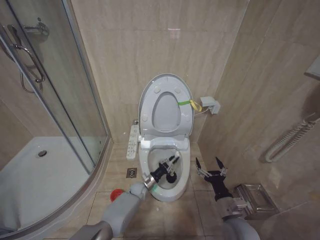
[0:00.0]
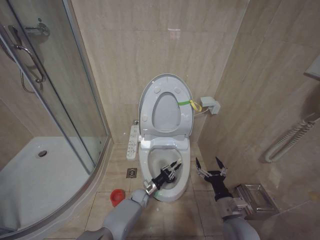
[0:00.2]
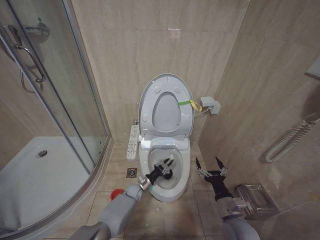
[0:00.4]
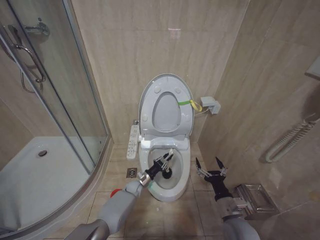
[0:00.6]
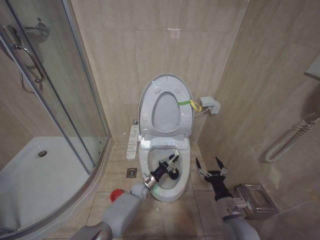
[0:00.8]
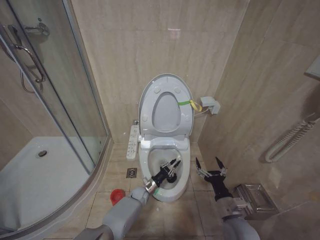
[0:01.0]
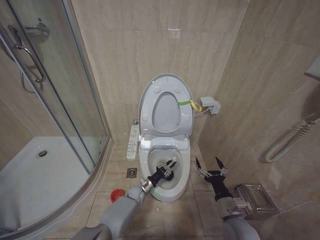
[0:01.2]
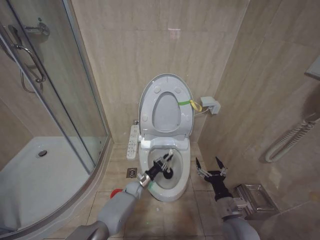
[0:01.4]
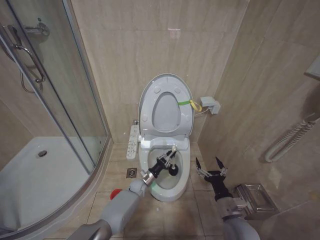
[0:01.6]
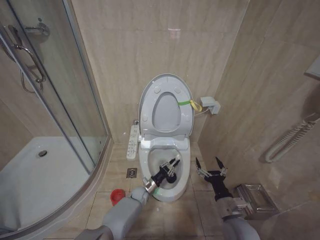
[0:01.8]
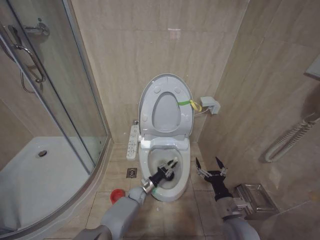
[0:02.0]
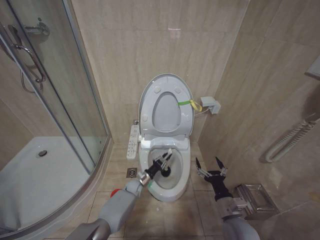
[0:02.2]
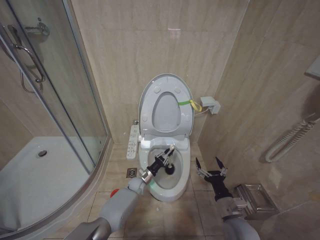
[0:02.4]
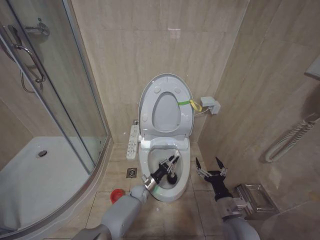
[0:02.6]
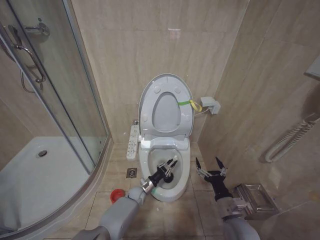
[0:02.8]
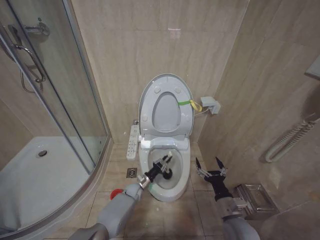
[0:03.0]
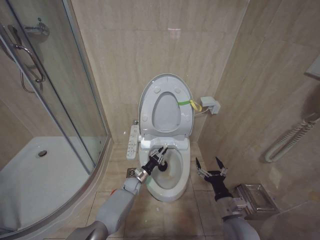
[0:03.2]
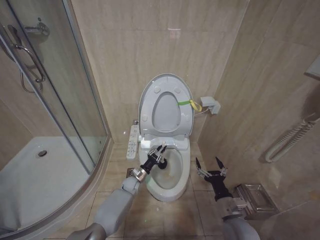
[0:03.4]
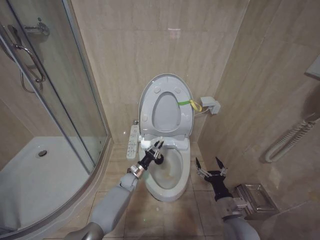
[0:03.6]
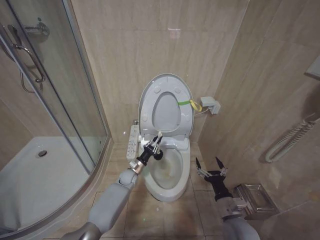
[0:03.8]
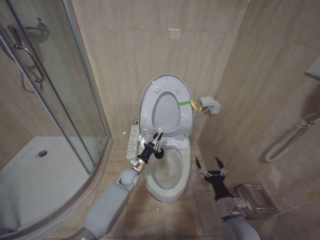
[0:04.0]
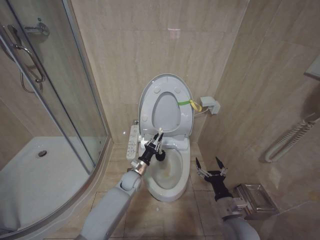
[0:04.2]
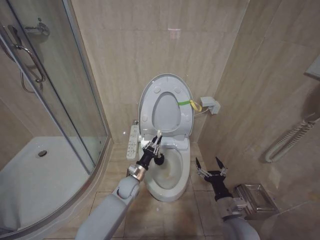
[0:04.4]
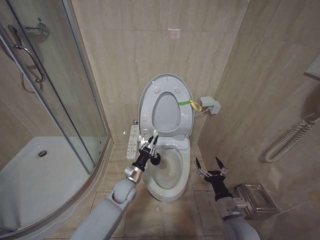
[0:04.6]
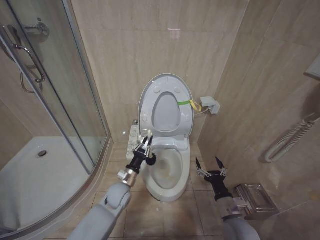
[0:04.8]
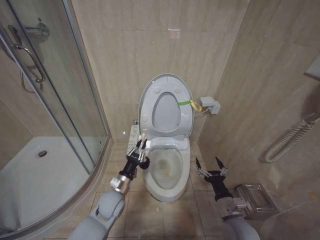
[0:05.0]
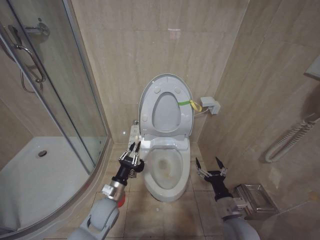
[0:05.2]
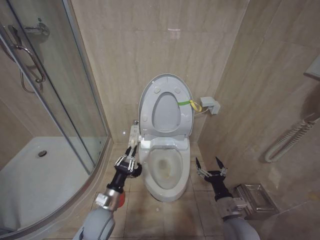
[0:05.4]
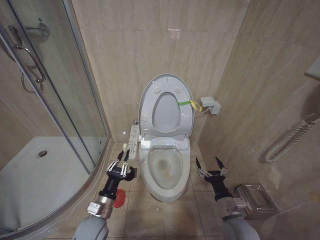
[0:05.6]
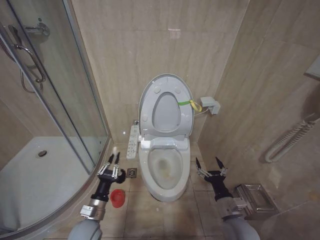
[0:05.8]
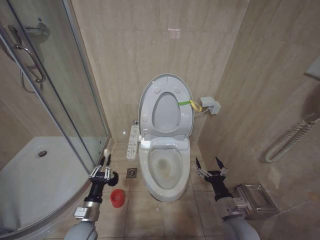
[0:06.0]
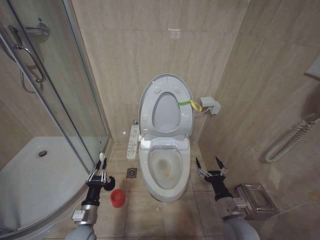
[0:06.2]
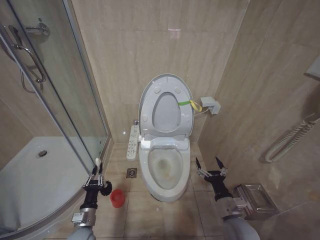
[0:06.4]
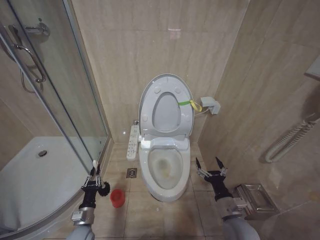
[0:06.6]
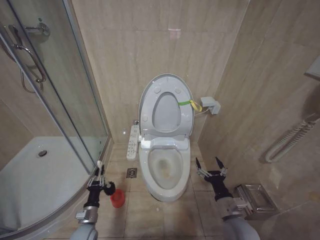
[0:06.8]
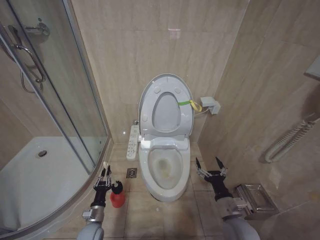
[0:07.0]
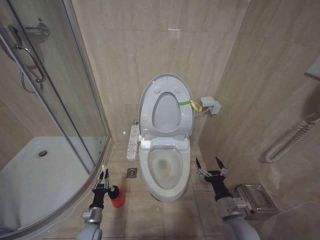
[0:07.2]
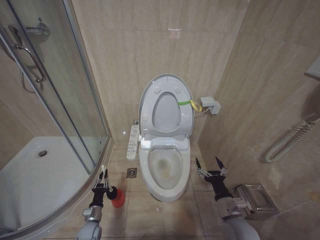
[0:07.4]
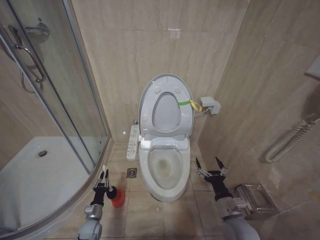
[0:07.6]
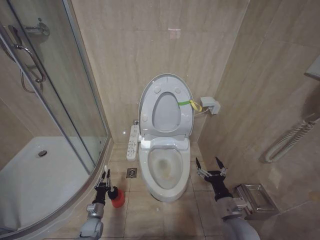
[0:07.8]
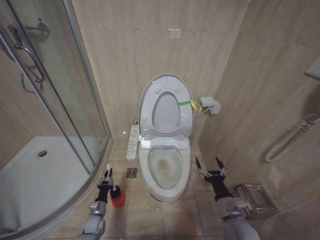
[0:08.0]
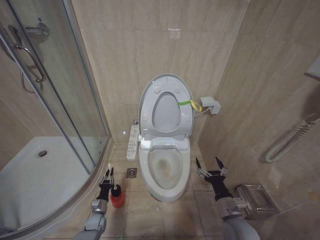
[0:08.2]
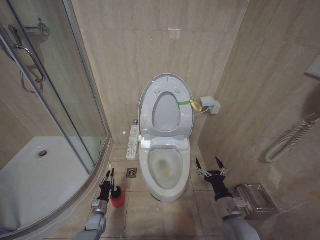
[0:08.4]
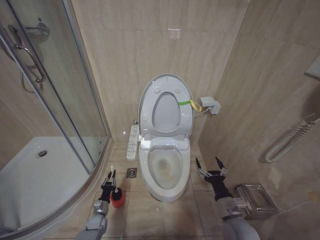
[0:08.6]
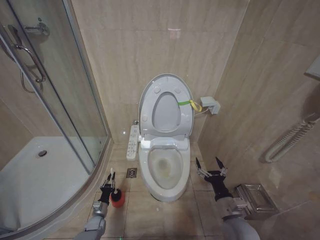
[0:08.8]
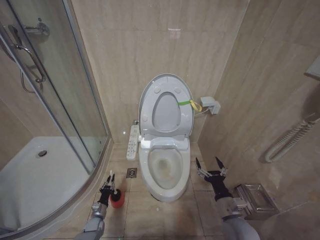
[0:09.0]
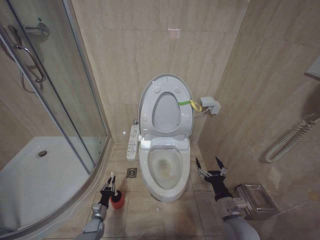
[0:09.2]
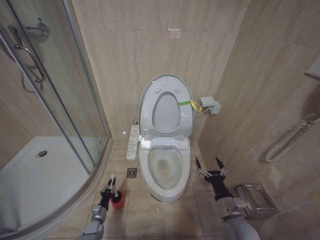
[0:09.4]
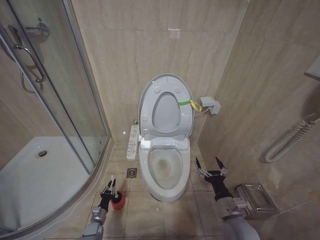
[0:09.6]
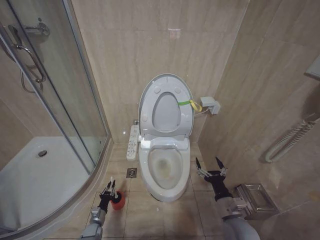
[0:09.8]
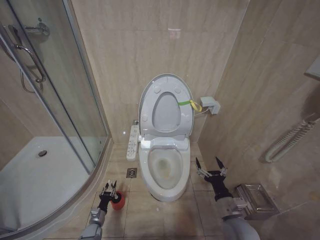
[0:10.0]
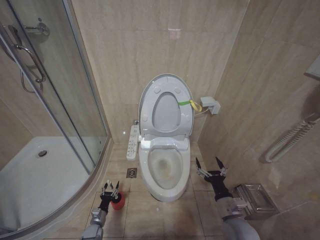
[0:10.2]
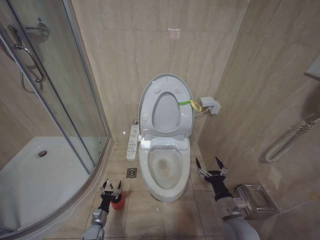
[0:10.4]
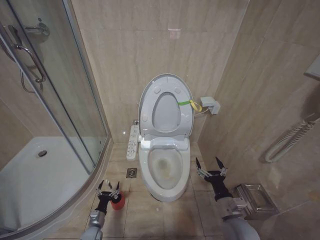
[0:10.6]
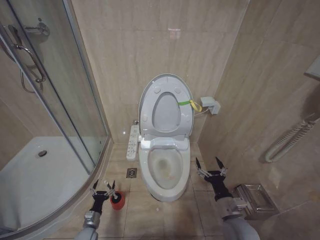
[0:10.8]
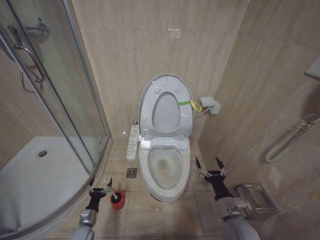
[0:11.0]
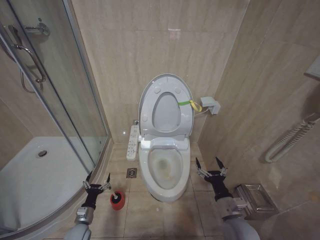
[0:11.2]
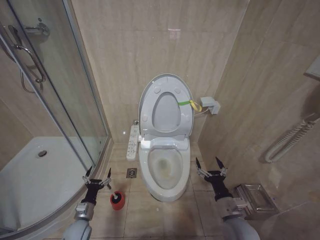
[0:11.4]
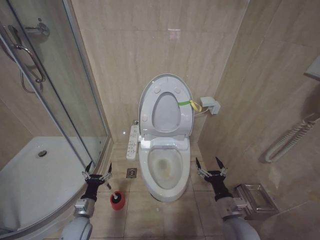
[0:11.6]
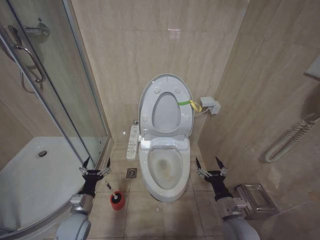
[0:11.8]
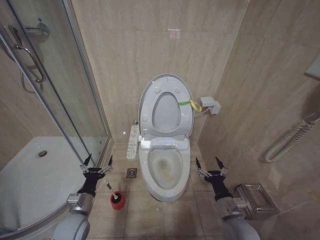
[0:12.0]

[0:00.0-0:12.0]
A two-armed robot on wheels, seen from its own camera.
Task of the whole recording: Open the toilet lid, clean the toilet bowl with a toilet brush, close the toilet lid, and flush.
0:00.0 to 0:03.0: The grippers make only small movements.
0:03.0 to 0:04.4: The left gripper shifts approximately 15 cm upward.
0:04.4 to 0:06.0: The left gripper moves backward and to the left, roughly 25 cm.
0:06.0 to 0:07.6: The left gripper is displaced downward by about 20 cm.
0:07.6 to 0:09.0: The left gripper shifts approximately 5 cm downward.
0:09.0 to 0:10.4: The left gripper opens its fingers.
0:10.4 to 0:12.0: The left gripper is displaced upward by roughly 25 cm.

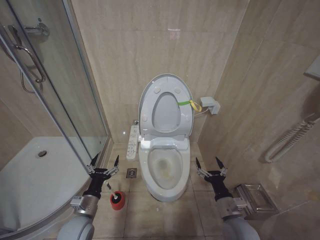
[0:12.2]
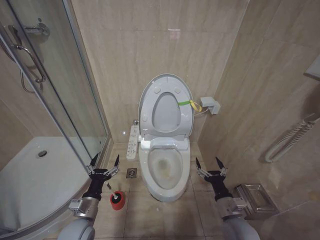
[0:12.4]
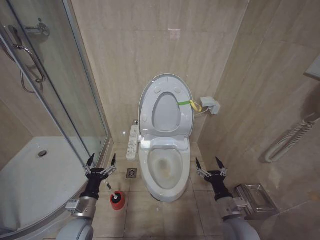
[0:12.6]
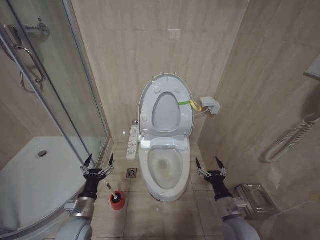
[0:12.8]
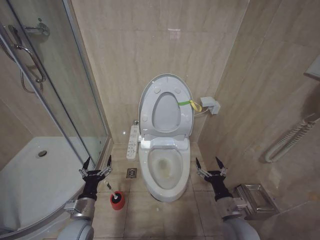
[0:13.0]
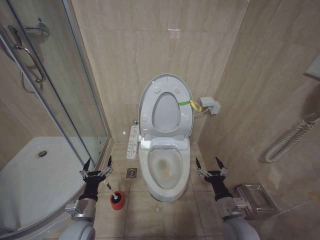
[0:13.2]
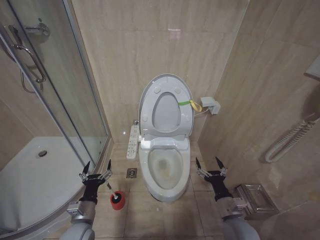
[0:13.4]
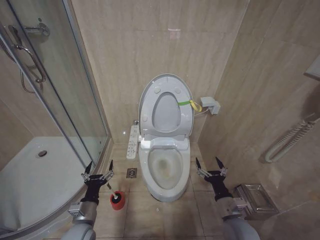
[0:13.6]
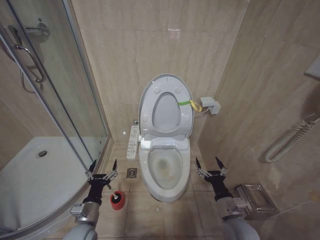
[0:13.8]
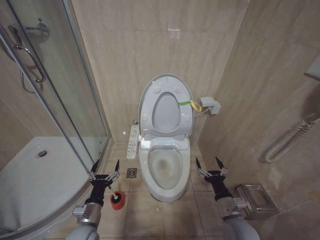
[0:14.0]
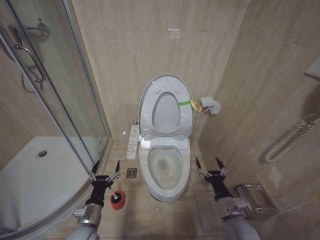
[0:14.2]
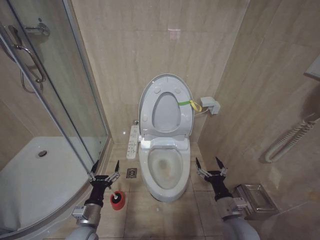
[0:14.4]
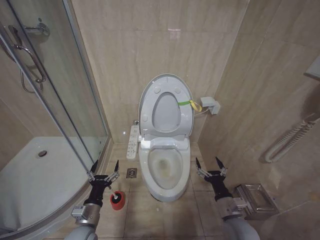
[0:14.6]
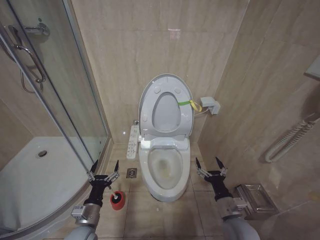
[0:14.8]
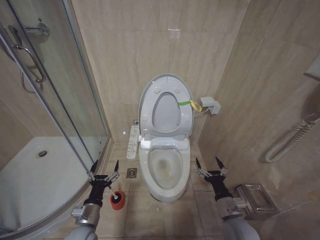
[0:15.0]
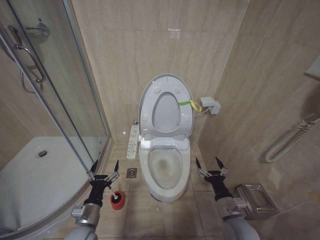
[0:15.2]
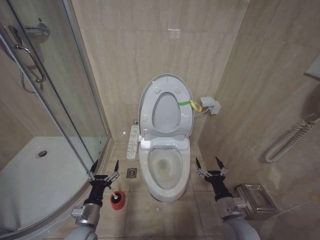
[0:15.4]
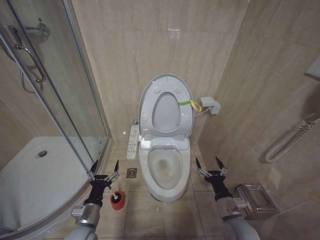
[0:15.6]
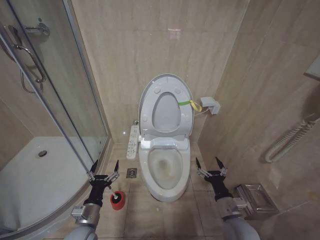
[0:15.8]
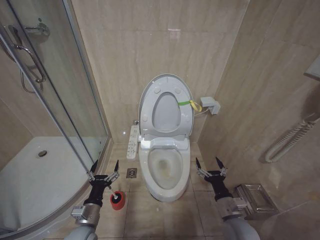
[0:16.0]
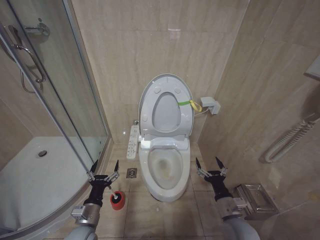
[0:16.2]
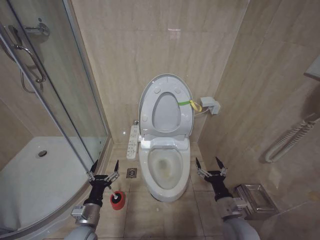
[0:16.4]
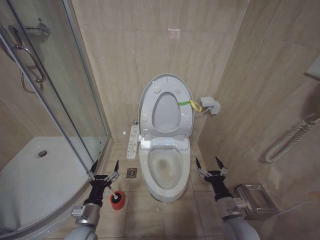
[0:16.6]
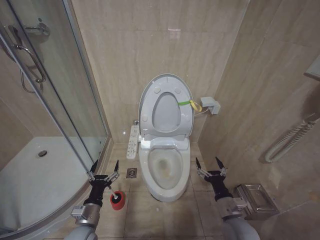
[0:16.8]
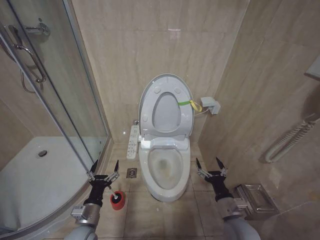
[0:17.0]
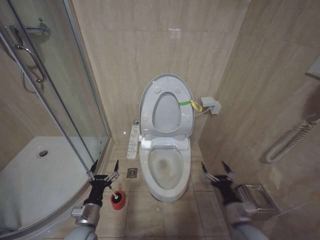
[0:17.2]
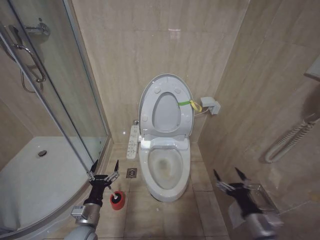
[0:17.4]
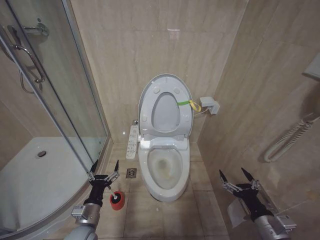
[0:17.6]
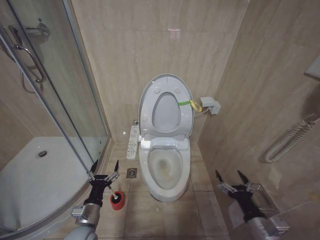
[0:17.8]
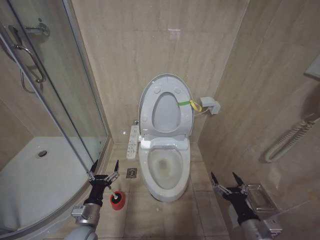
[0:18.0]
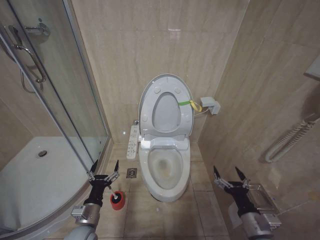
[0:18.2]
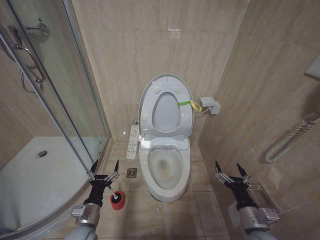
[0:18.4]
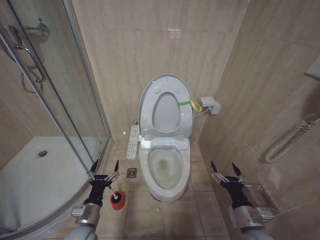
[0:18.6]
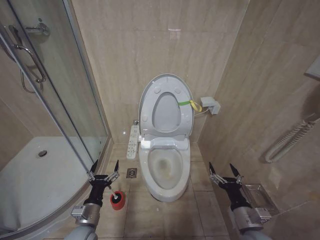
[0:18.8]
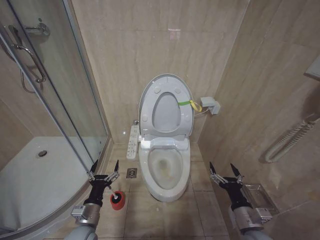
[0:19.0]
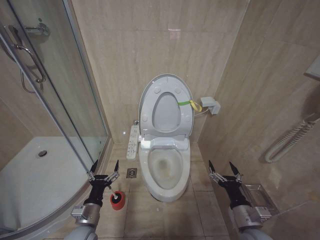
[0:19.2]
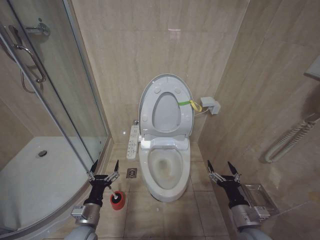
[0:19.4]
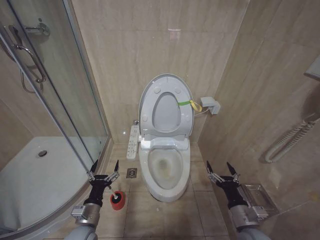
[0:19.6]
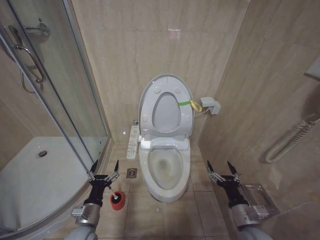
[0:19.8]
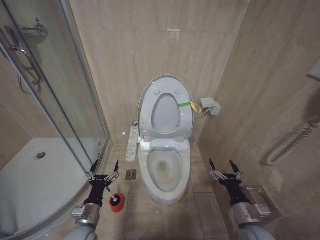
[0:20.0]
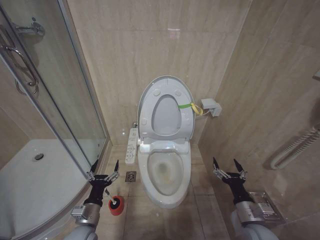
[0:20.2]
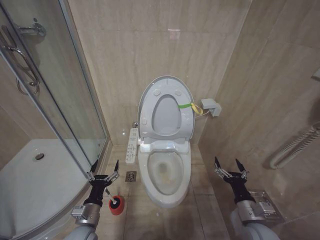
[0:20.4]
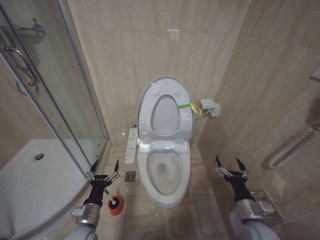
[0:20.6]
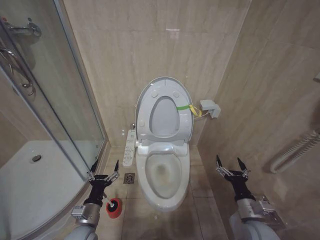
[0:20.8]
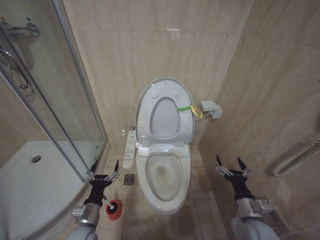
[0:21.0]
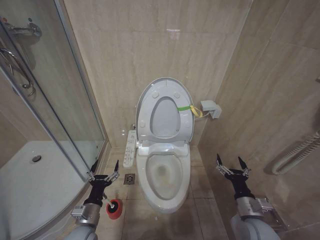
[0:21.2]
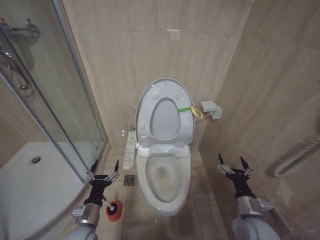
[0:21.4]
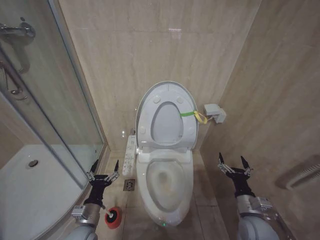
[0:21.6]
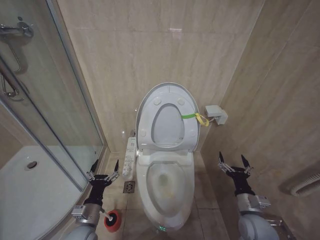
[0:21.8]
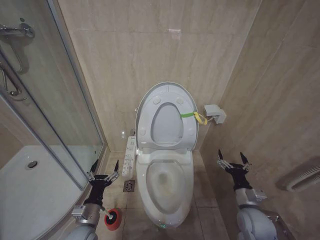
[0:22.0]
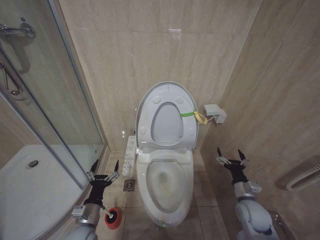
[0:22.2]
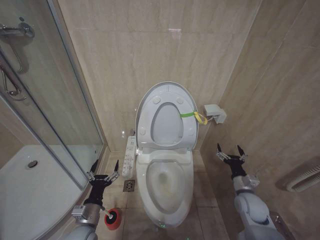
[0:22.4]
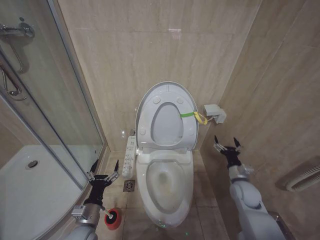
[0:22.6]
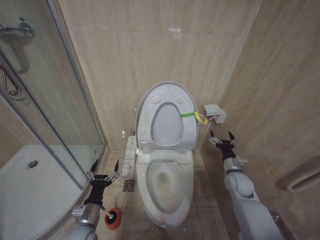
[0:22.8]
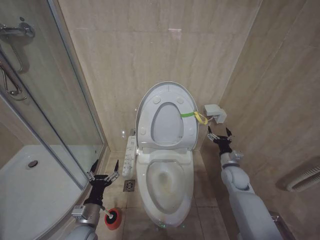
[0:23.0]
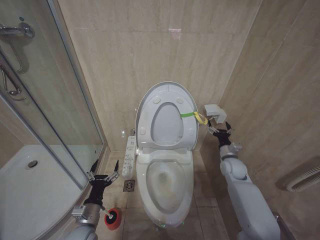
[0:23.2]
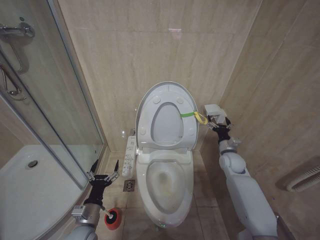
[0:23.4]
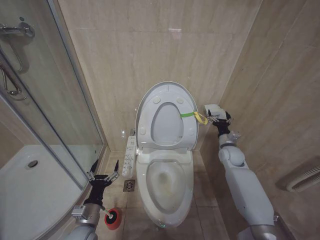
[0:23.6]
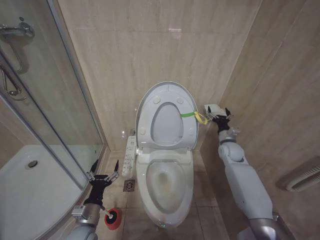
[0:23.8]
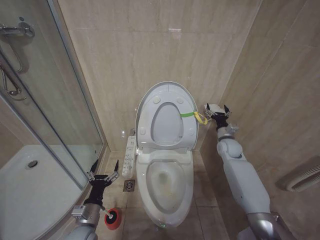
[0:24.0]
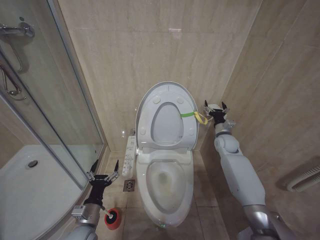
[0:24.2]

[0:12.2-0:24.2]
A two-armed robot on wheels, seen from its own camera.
Task of the whole recording: Open the toilet lid, clean the toilet bowl with a toilet brush, close the toilet lid, and flush.
0:12.2 to 0:13.8: The grippers move only a little.
0:13.8 to 0:16.6: Both grippers stay about where they are.
0:16.6 to 0:18.2: The right gripper shifts approximately 5 cm backward.
0:18.2 to 0:21.2: The grippers stay close to where they were, moving slightly.
0:21.2 to 0:22.6: The right gripper moves forward, approximately 10 cm.
0:22.6 to 0:24.2: The right gripper moves forward and upward, some 20 cm.
